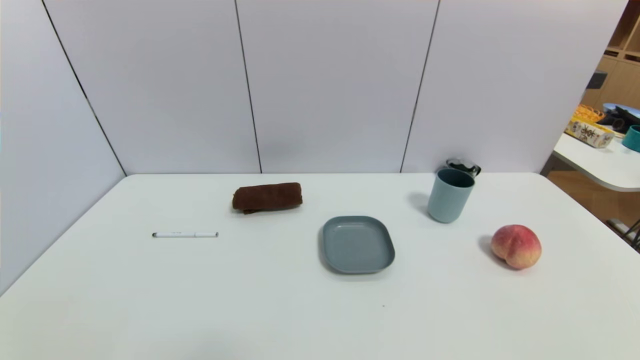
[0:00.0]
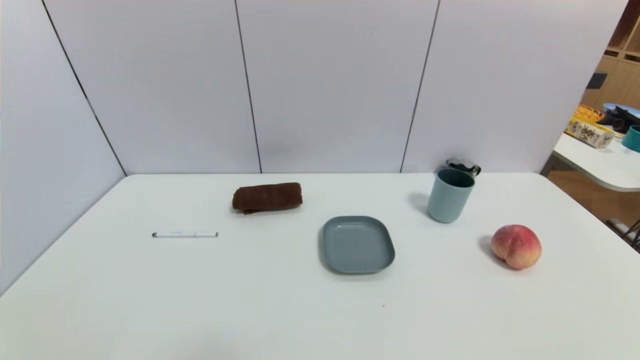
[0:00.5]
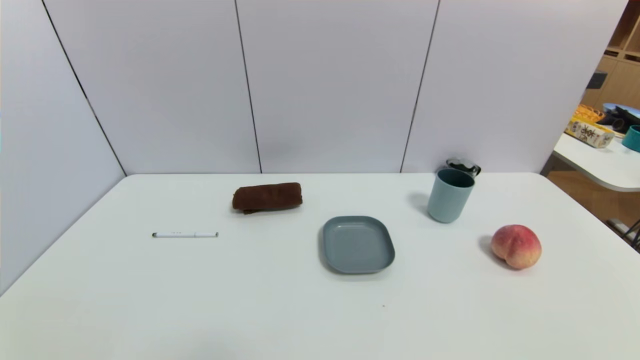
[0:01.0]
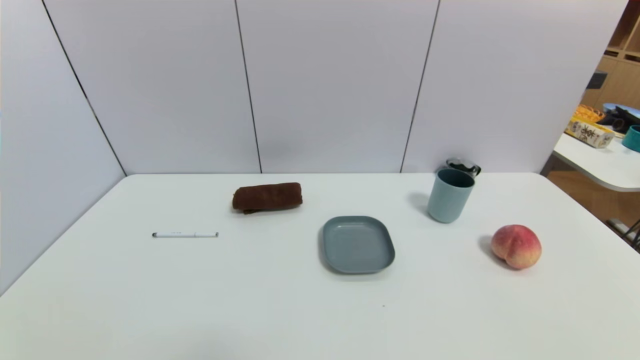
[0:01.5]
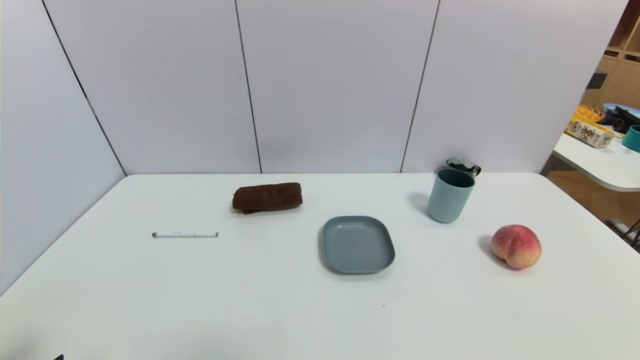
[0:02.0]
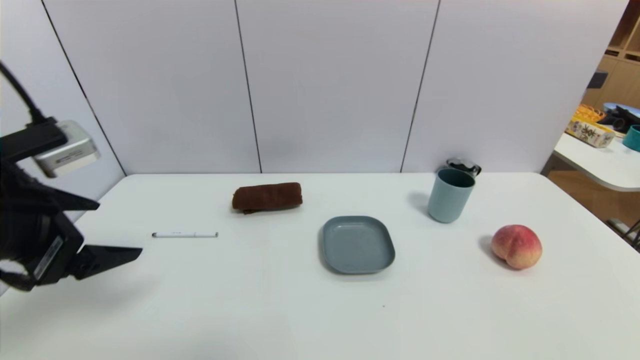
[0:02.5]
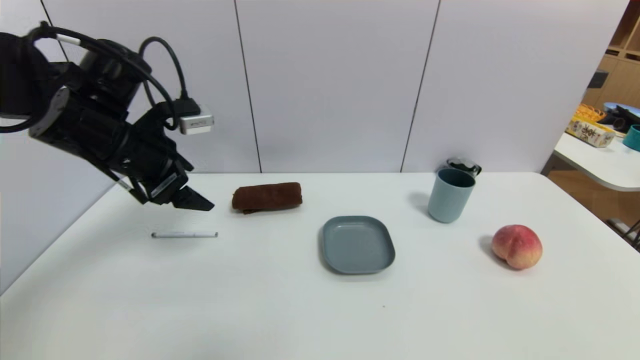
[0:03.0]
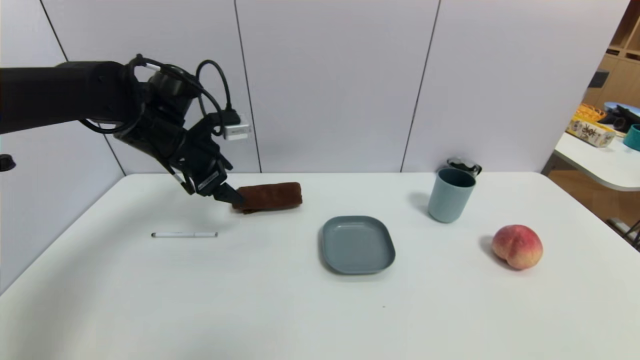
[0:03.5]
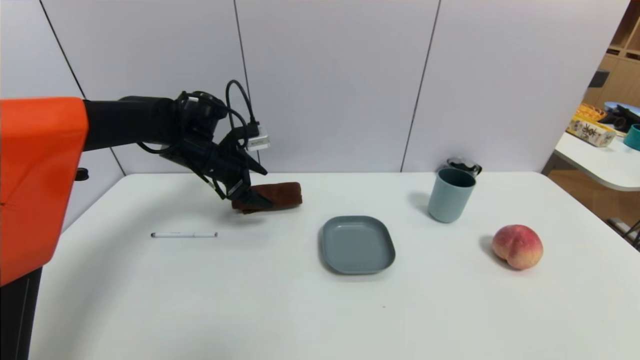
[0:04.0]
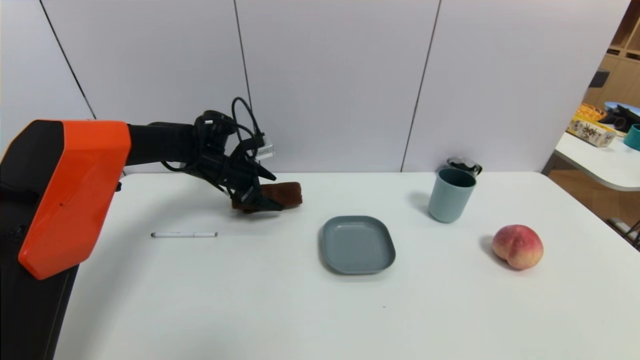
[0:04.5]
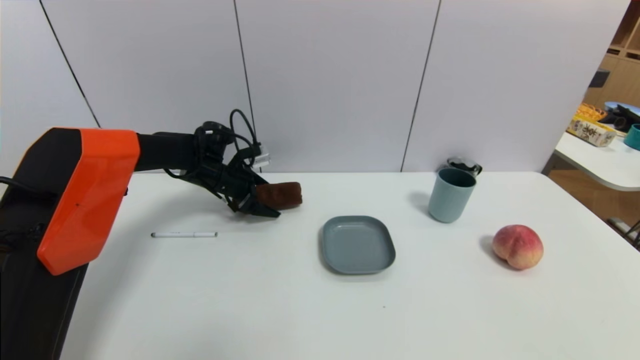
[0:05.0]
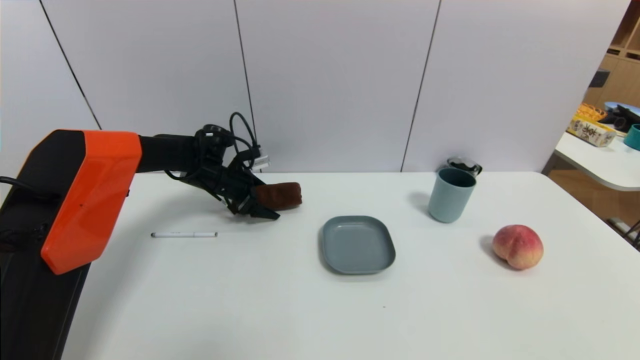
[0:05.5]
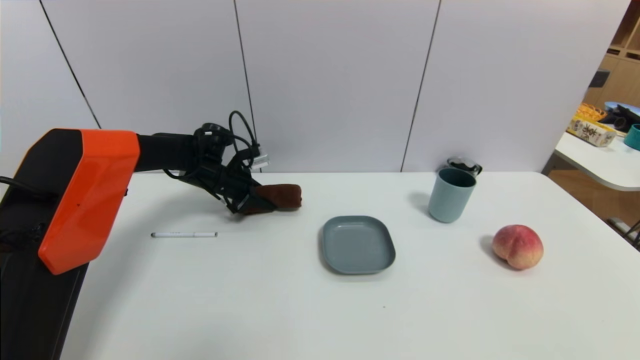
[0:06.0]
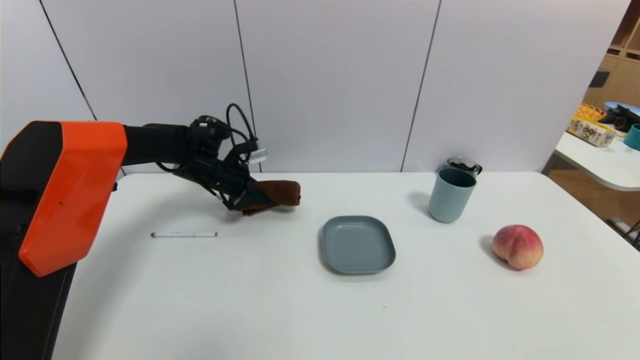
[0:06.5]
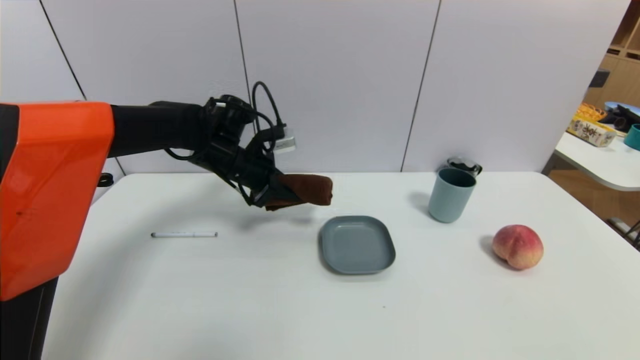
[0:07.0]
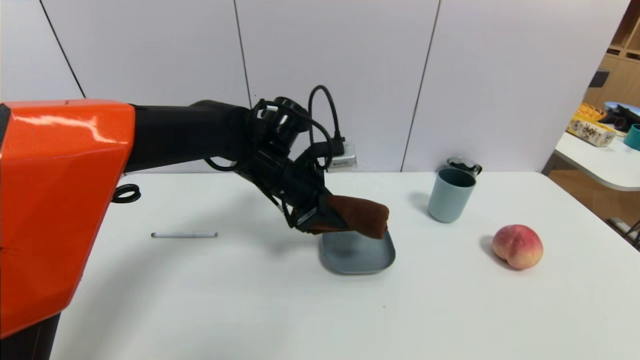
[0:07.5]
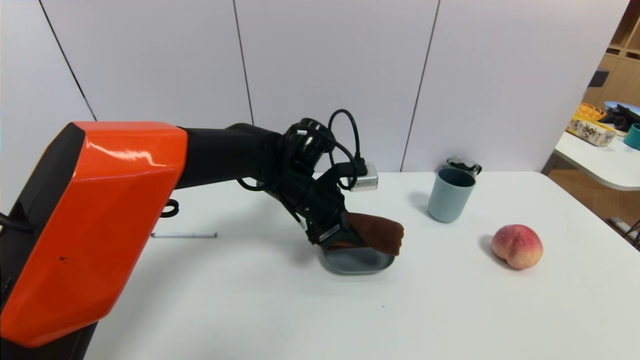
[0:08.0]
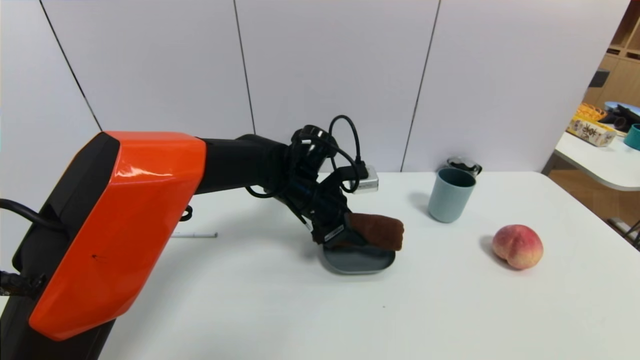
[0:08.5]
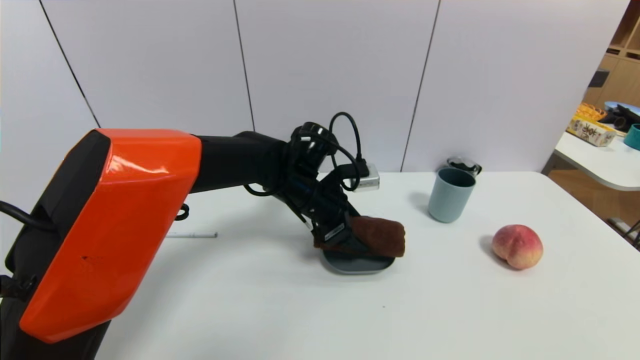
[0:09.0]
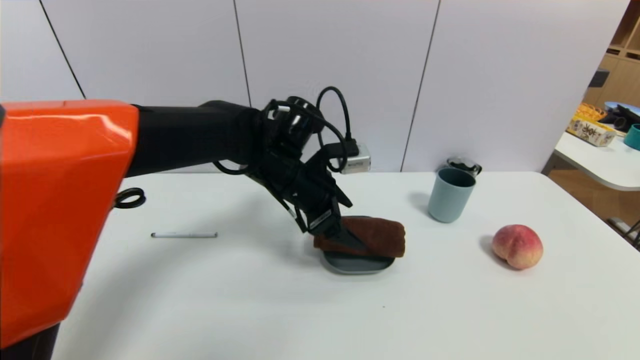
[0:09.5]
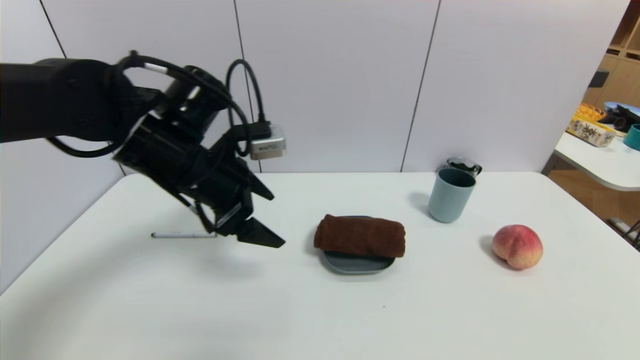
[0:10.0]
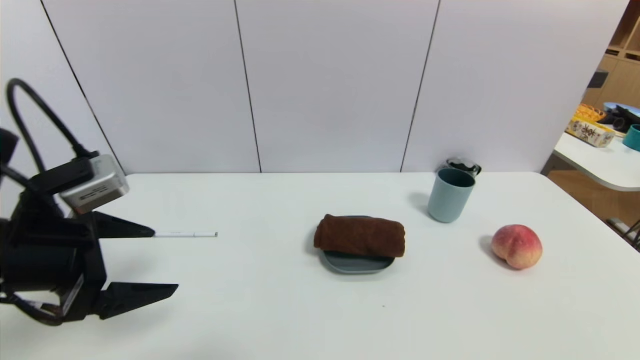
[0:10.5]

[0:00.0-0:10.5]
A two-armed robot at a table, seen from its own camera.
Task of the whole recording: use a gripper to pick the target object and place on the dish.
Step, 0:00.0 to 0:06.0: Grasp the brown towel with the left gripper.
Step, 0:06.5 to 0:09.5: Place the brown towel on the dish with the left gripper.
0:02.0 to 0:04.0: The left gripper moves forward, approximately 40 cm.
0:04.0 to 0:06.5: The left gripper closes its fingers.
0:06.5 to 0:08.5: The left gripper is displaced to the right and backward by approximately 20 cm.
0:08.5 to 0:10.5: The left gripper shifts some 30 cm to the left and backward, and opens.

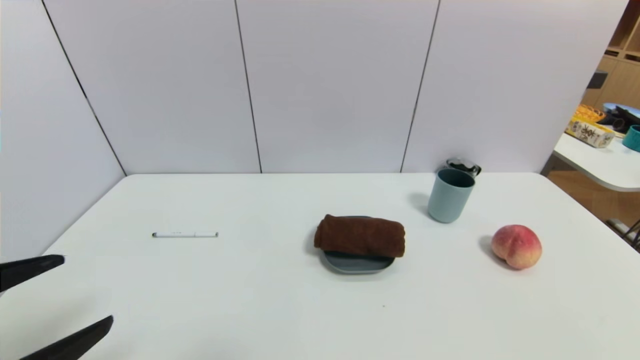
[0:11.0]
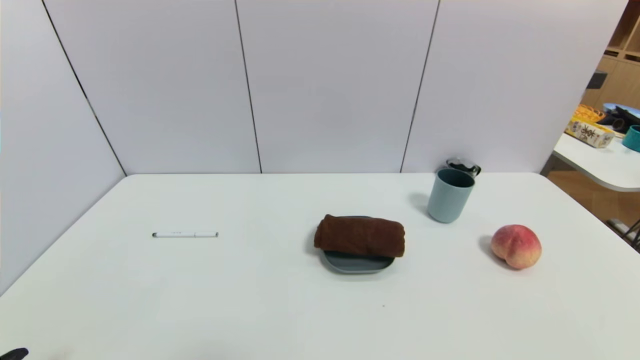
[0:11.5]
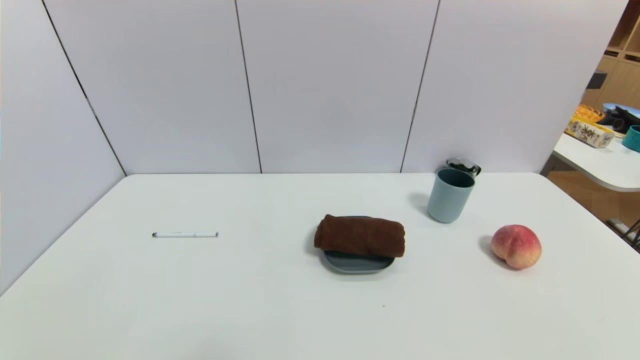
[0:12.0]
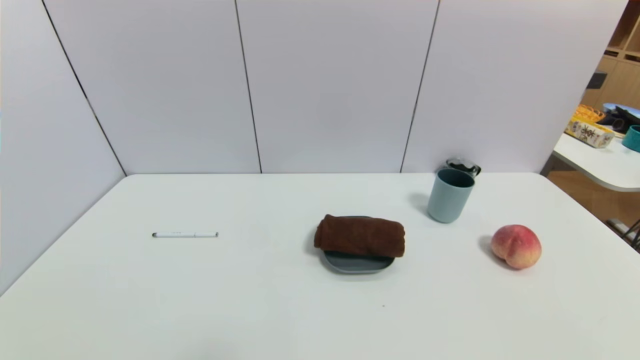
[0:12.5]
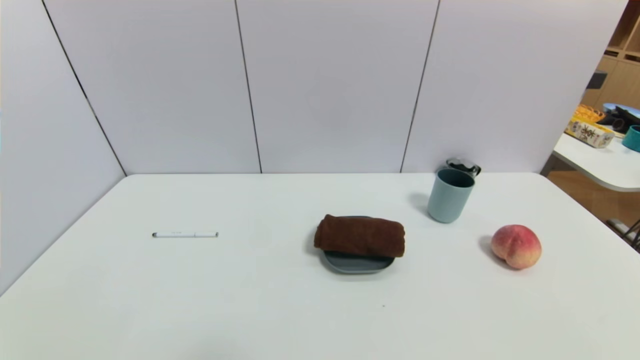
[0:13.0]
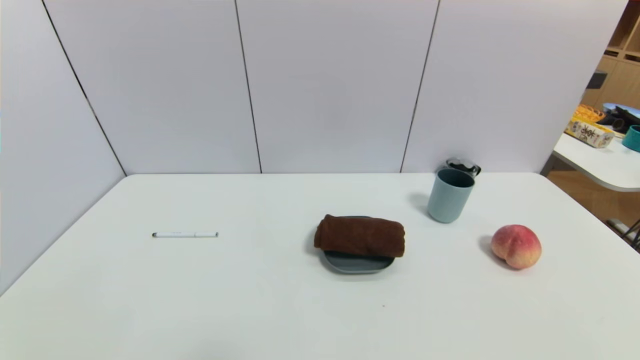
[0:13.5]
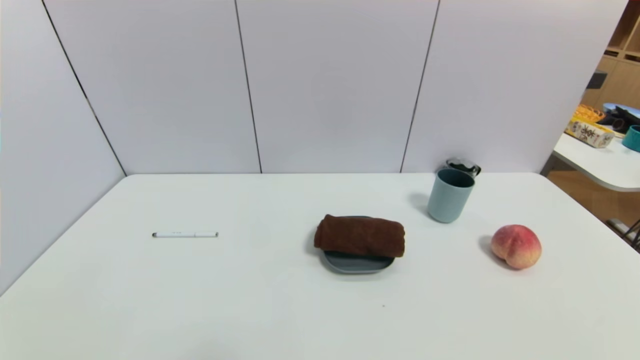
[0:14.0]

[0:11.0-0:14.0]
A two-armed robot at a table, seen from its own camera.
Task of the whole recording: use a gripper to pick the target object and place on the dish.
0:11.0 to 0:12.5: The left gripper heads downward and backward, covering some 15 cm.
0:12.5 to 0:14.0: Both grippers stay put.

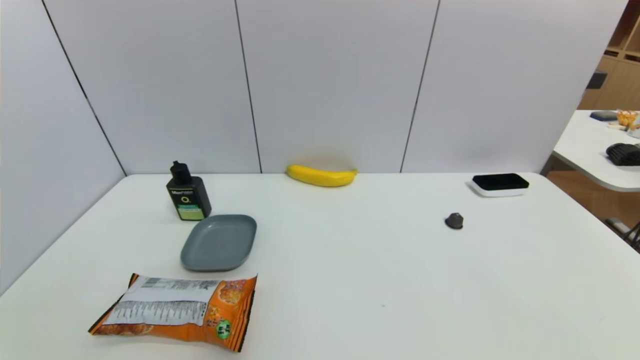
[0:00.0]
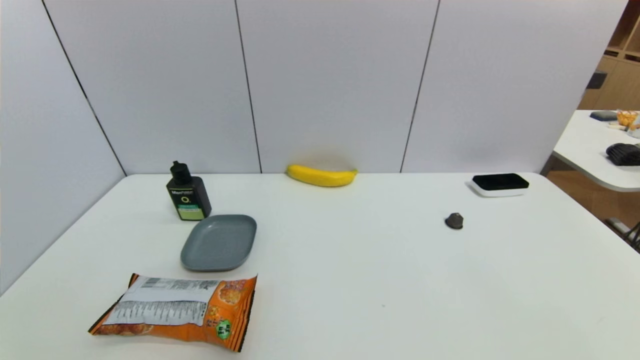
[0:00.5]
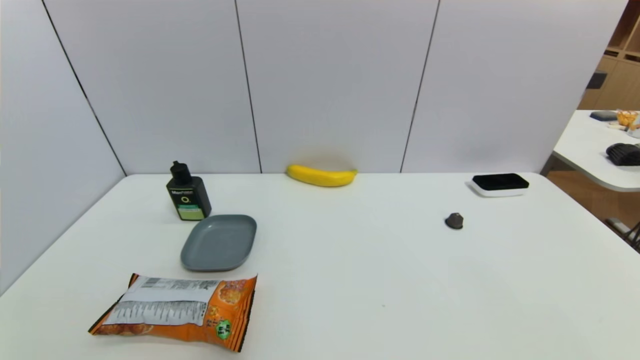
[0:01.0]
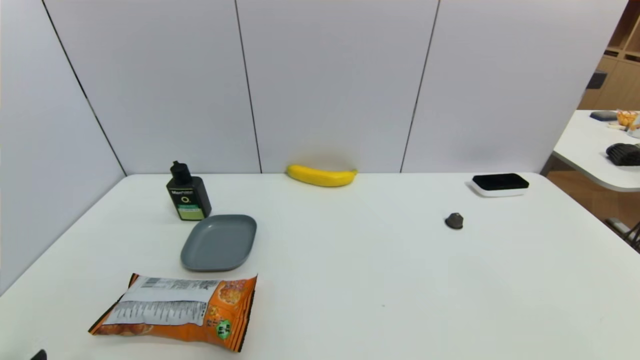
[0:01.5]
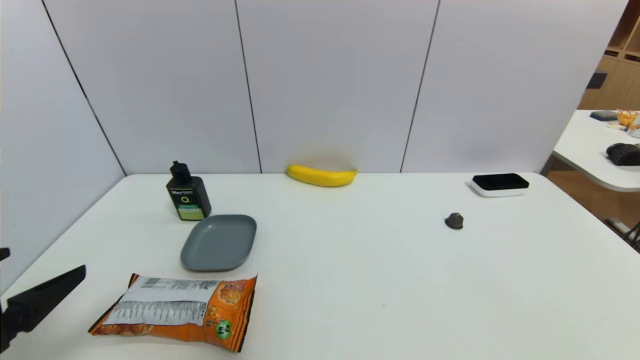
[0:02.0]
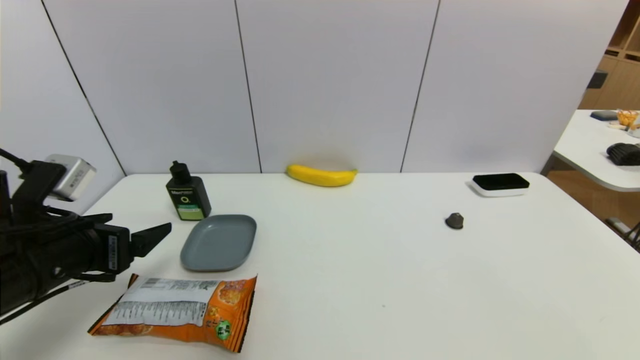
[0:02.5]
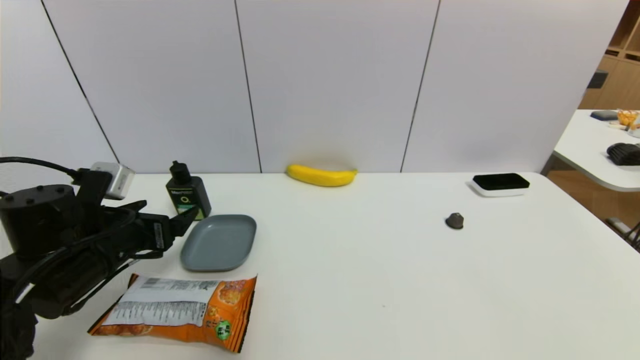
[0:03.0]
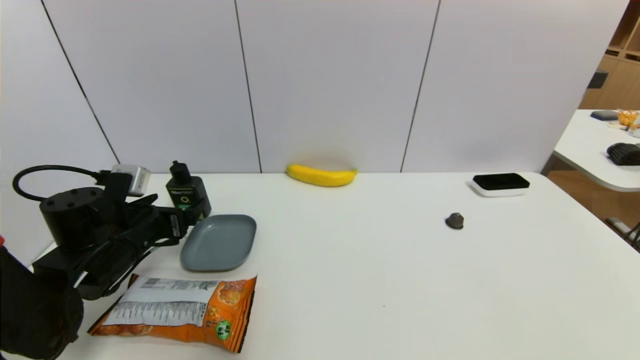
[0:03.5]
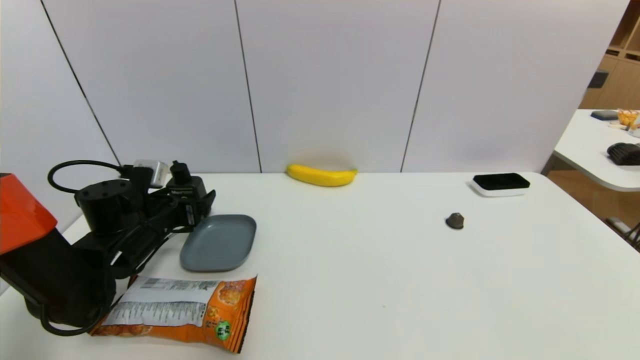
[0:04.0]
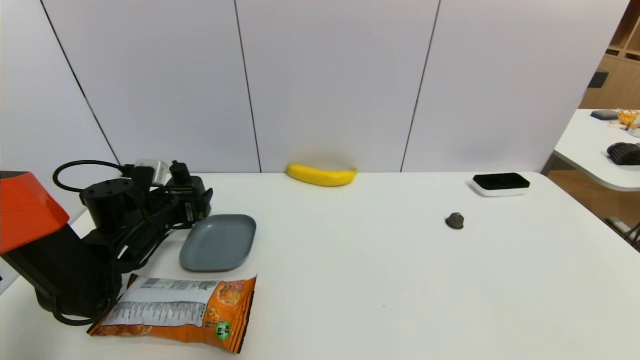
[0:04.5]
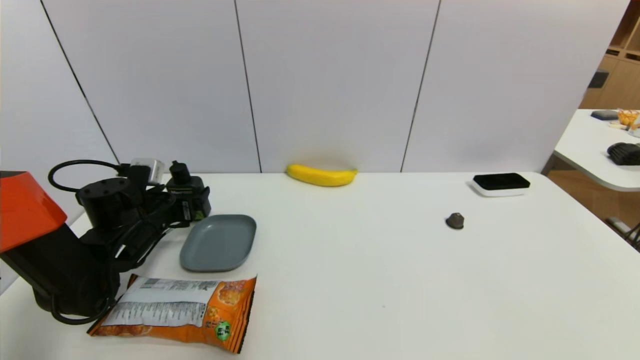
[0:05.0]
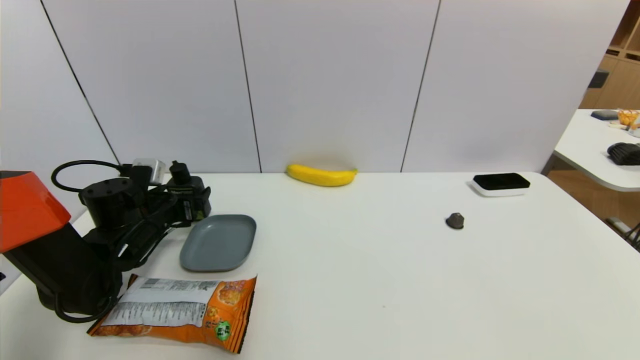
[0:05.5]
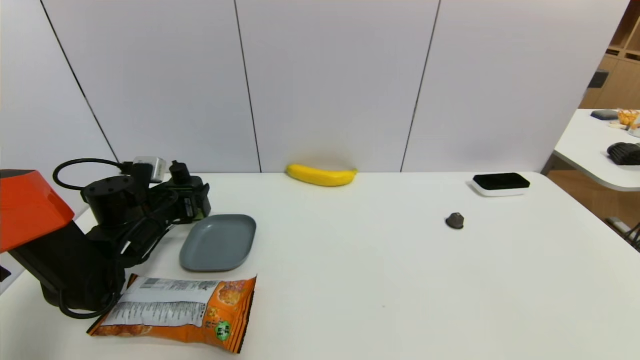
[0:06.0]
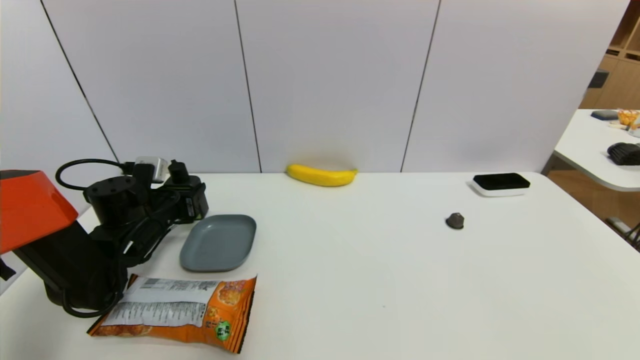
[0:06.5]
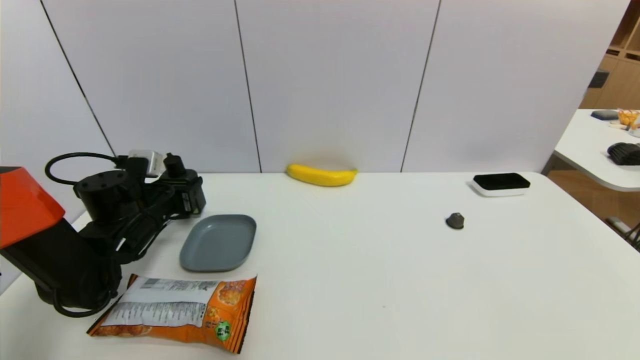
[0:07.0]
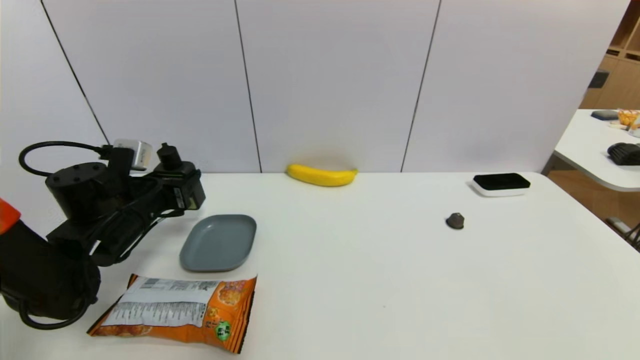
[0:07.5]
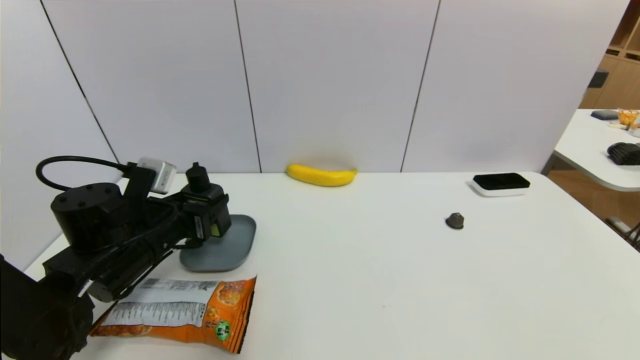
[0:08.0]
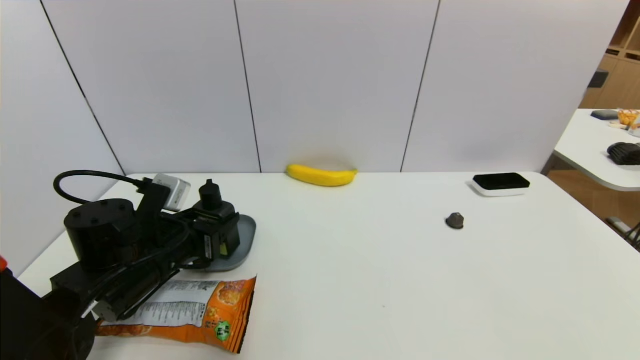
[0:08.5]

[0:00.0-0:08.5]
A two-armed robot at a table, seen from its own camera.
Task of the whole recording: use a gripper to pick the target object and place on the dish.
Step, 0:00.0 to 0:06.0: Grasp the hard facial cleanser with the left gripper.
0:00.0 to 0:02.0: The left gripper goes roughly 20 cm upward and forward.
0:02.0 to 0:04.0: The left gripper shifts about 25 cm forward and downward.
0:04.0 to 0:06.5: The left gripper closes up.
0:06.5 to 0:08.5: The left gripper travels backward and to the right by some 10 cm.
